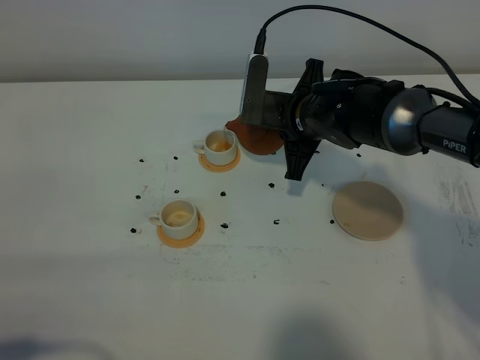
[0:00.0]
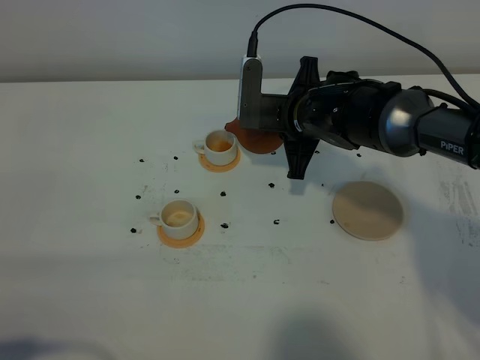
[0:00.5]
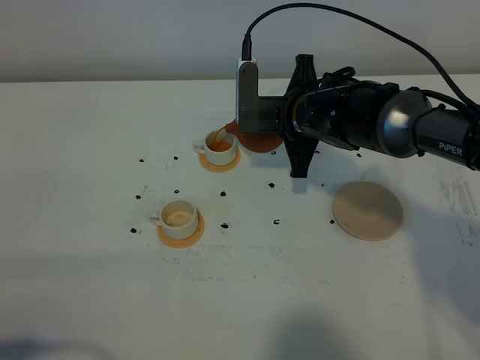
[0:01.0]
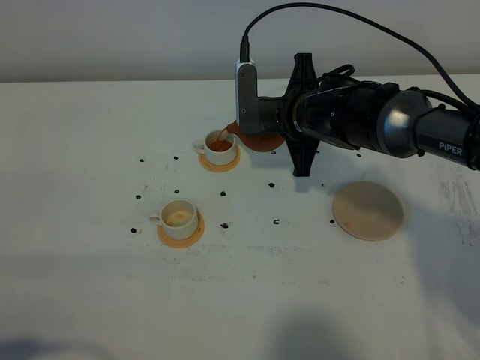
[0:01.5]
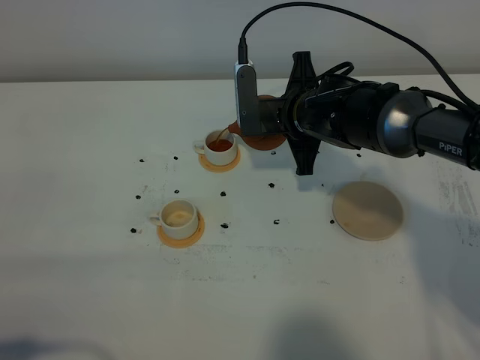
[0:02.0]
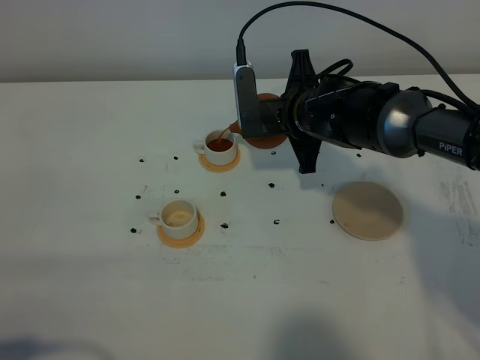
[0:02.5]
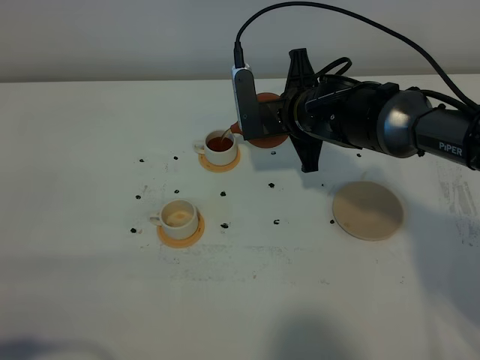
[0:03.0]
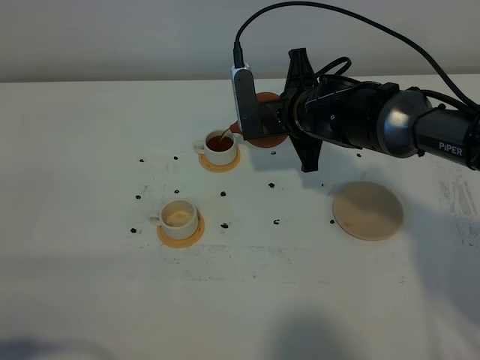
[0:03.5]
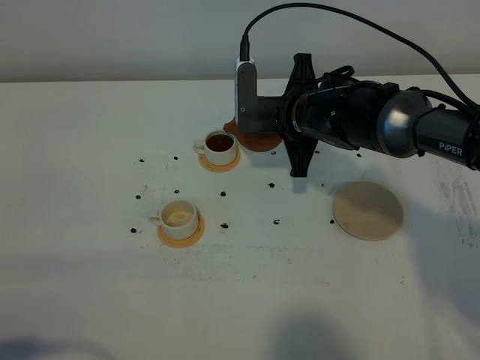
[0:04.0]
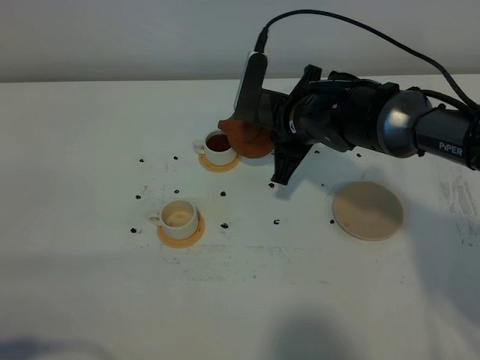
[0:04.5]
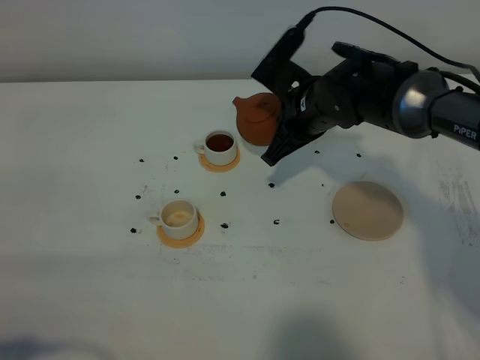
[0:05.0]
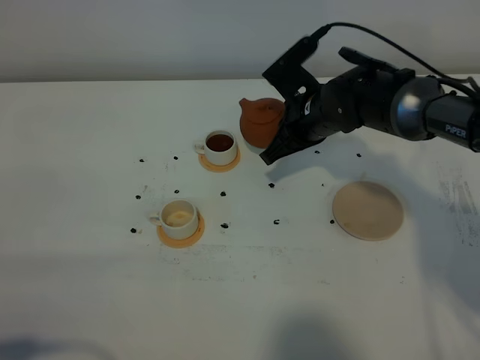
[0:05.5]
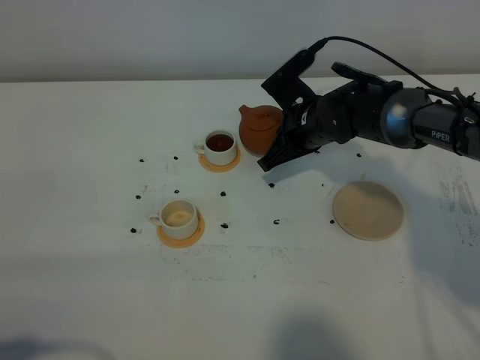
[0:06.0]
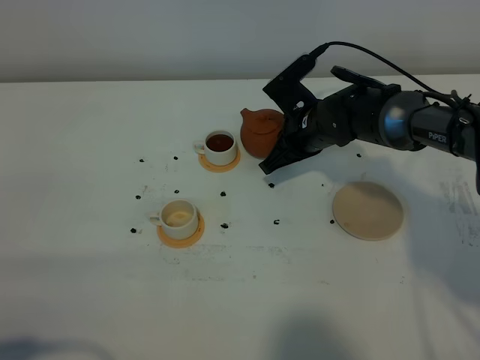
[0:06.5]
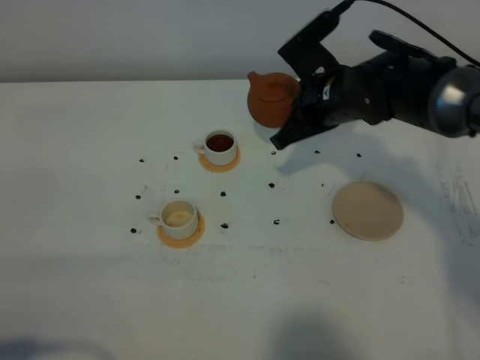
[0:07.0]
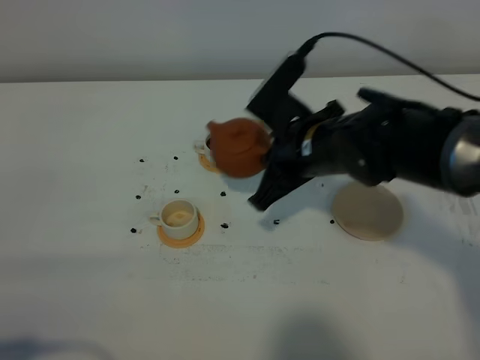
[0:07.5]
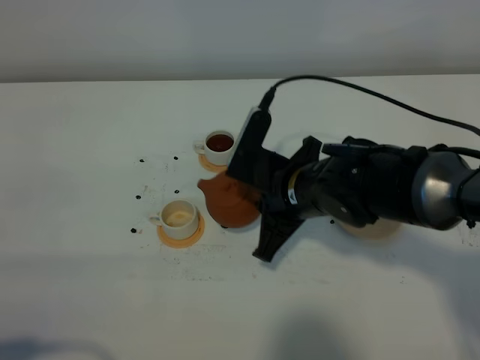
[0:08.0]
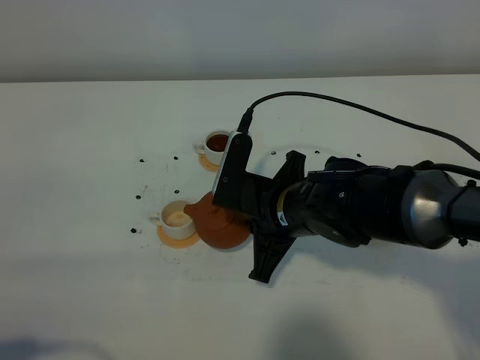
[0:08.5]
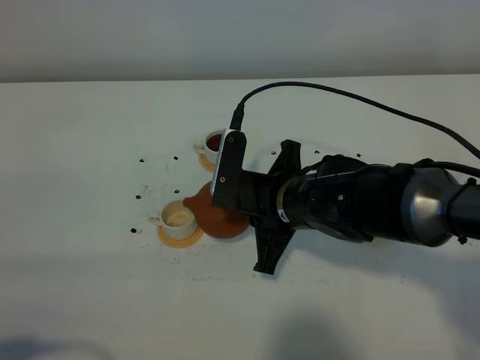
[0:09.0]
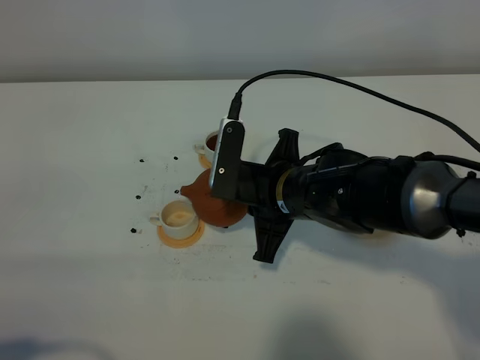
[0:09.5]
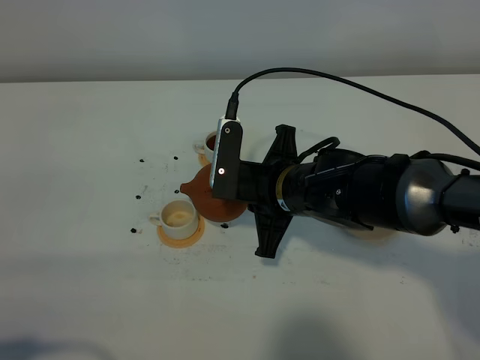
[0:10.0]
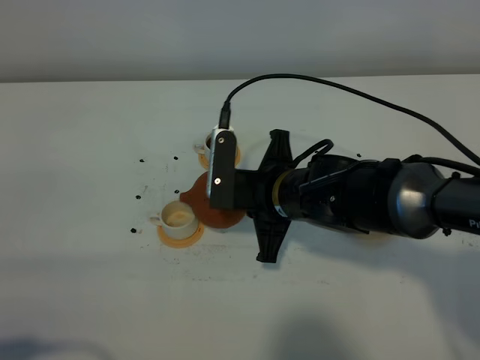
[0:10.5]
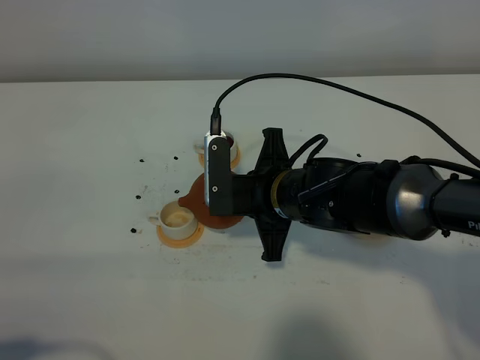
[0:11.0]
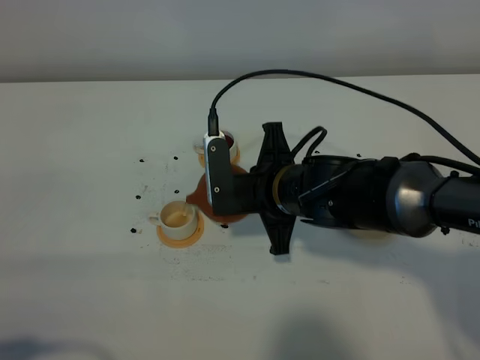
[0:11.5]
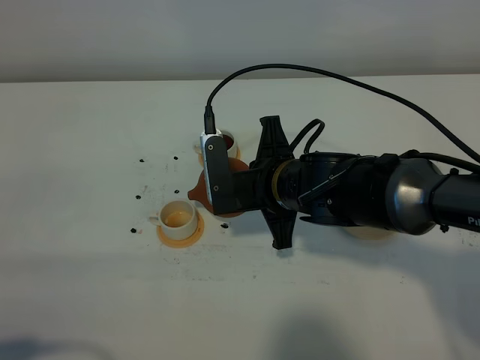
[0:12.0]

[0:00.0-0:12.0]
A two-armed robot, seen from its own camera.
Task of the whole recording: grasp the brown teapot and pour the tea into the two white teacups one by one, put the brown teapot back in its original place.
0:00.0 to 0:04.0: There are only small adjustments of the grippers.
0:04.0 to 0:06.0: The right gripper shifts by roughly 5 cm.
0:06.0 to 0:08.0: The right gripper goes roughly 15 cm backward.
0:08.0 to 0:10.0: The grippers make only small movements.
0:10.0 to 0:12.0: The grippers stay close to where they were, moving slightly.

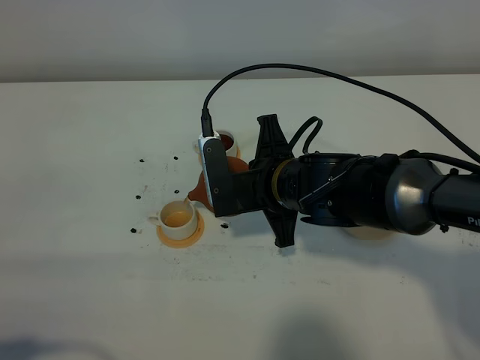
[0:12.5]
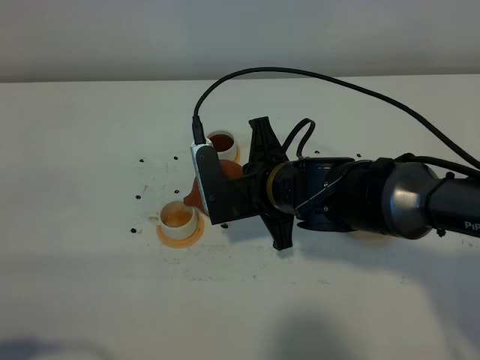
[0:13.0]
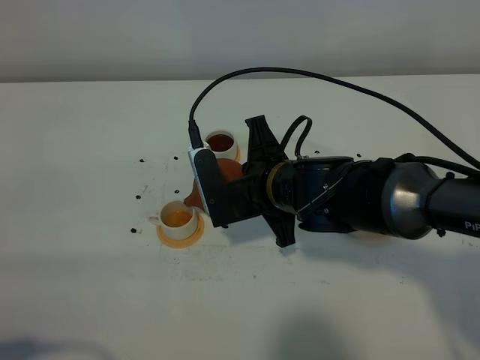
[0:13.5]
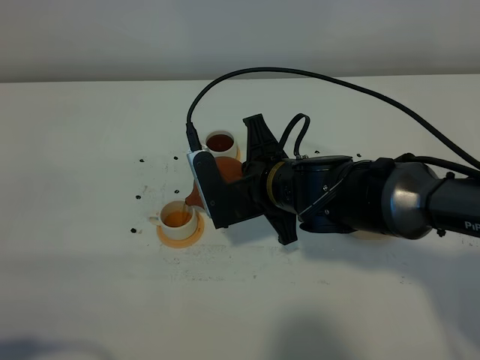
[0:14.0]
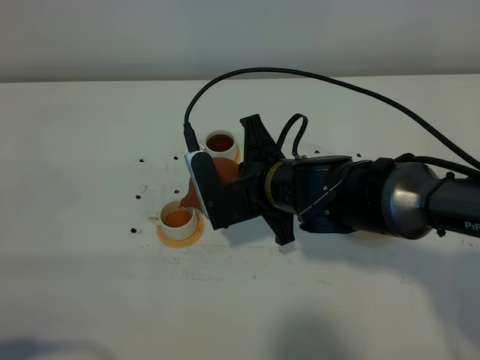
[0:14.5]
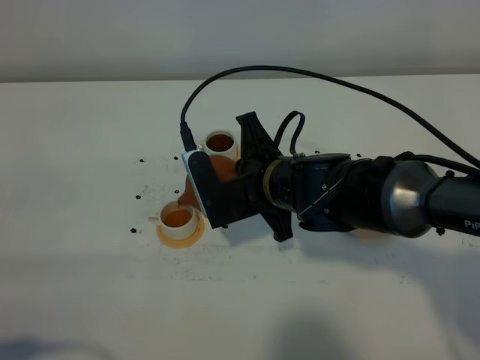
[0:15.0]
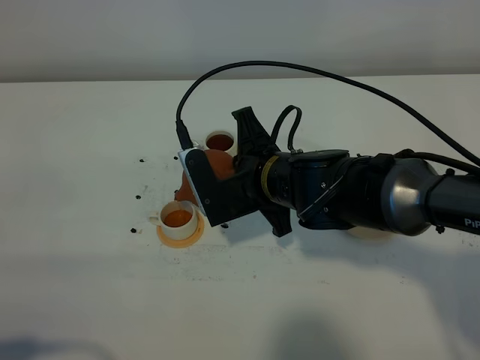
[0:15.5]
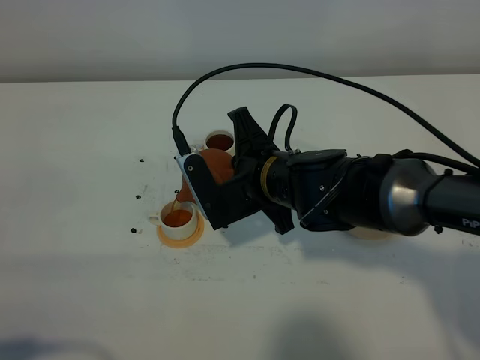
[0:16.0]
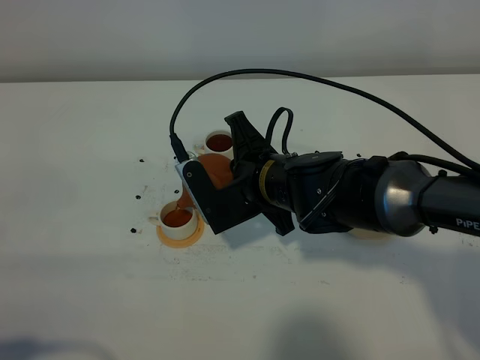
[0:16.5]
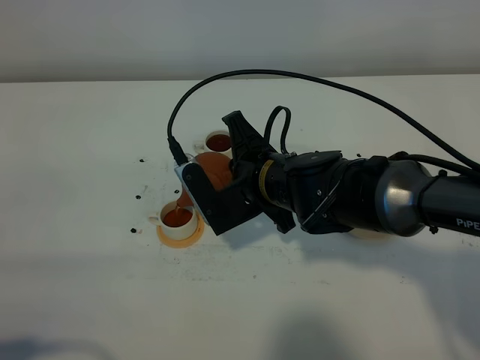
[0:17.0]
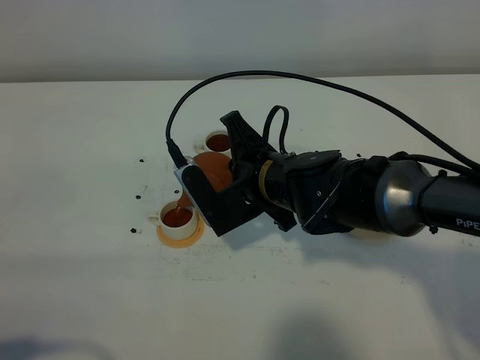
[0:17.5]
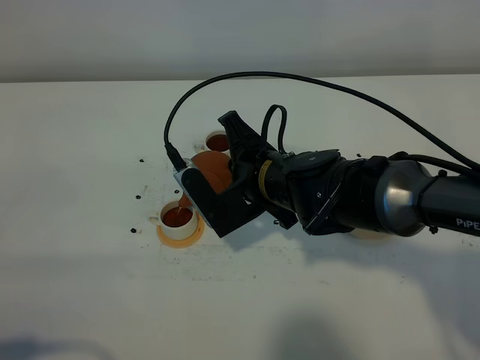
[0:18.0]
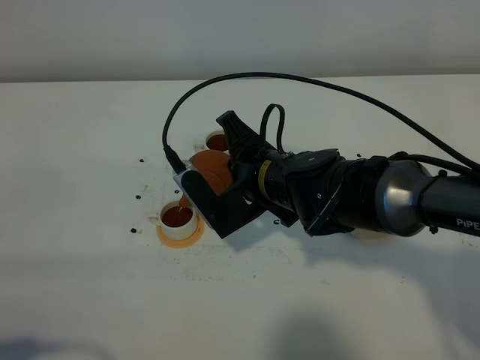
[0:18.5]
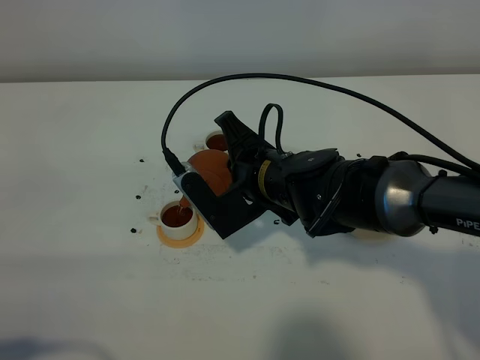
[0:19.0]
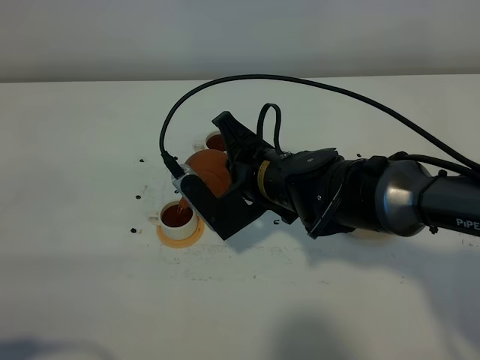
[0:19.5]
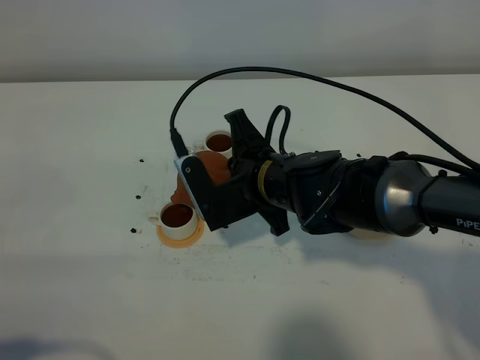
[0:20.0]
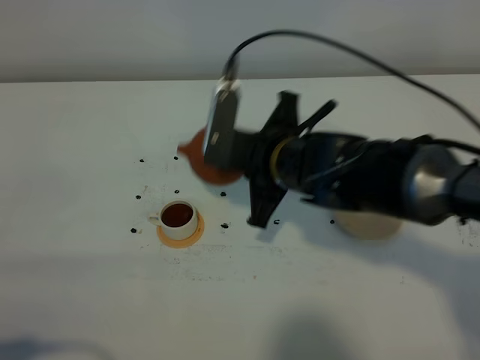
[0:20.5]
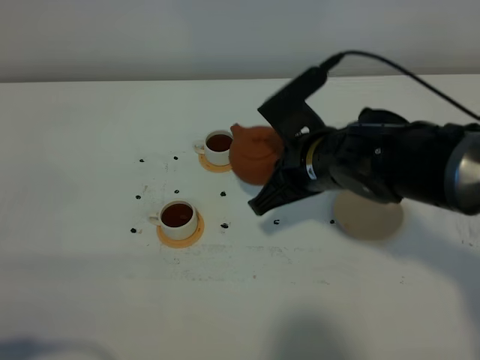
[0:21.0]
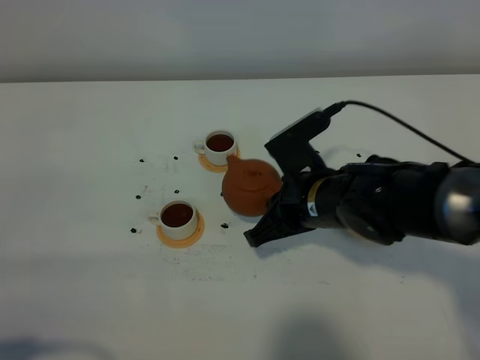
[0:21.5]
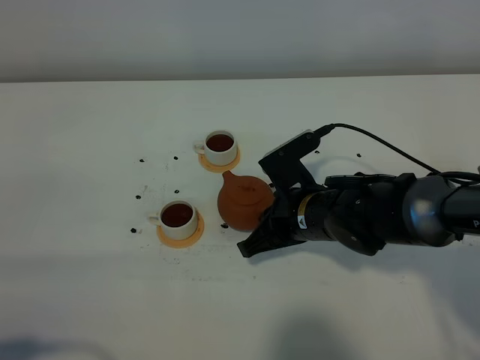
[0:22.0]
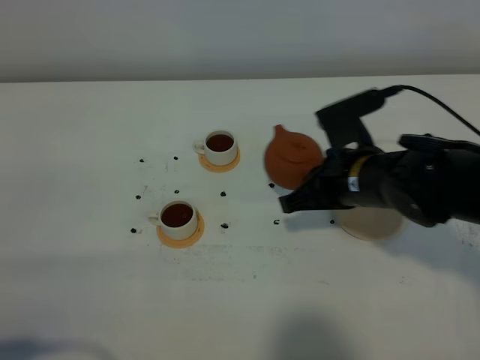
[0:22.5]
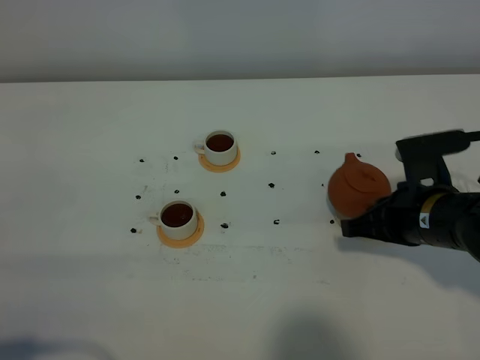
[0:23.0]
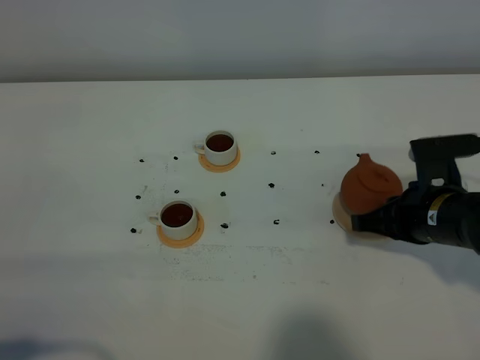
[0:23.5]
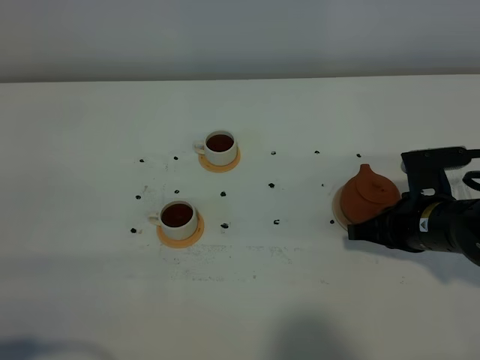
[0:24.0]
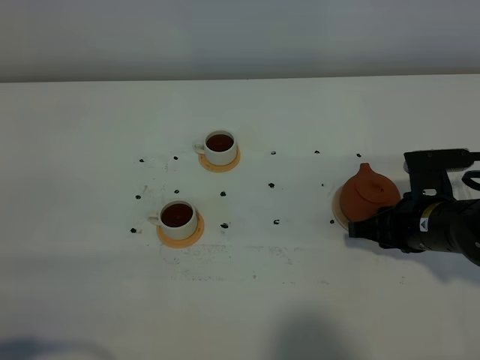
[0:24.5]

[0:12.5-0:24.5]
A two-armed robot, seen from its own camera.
Task of the whole recording: grasp the brown teapot and pour the tea into the two white teacups one by one, put the brown teapot back in its original place.
Step, 0:12.5 to 0:20.0: Pour tea into the teacup with the right gripper.
0:12.5 to 0:16.5: The grippers move only a little.
0:16.5 to 0:18.5: The grippers move only a little.
0:20.5 to 0:22.5: The right gripper heads to the right, covering approximately 10 cm.
0:22.5 to 0:24.5: The right gripper goes some 10 cm to the right and downward, and opens.

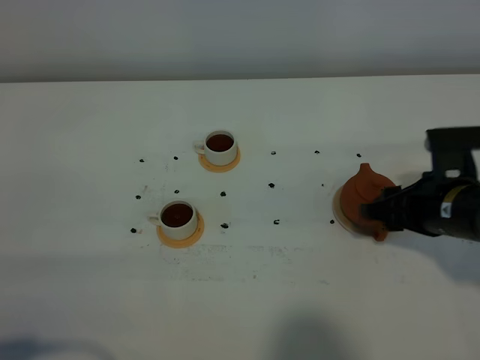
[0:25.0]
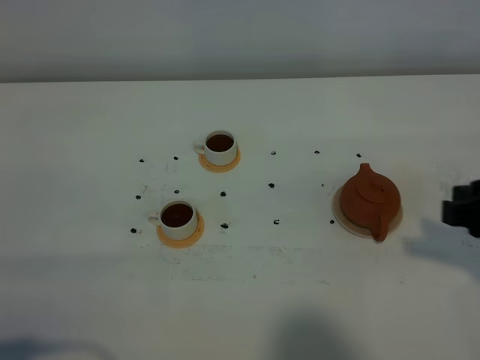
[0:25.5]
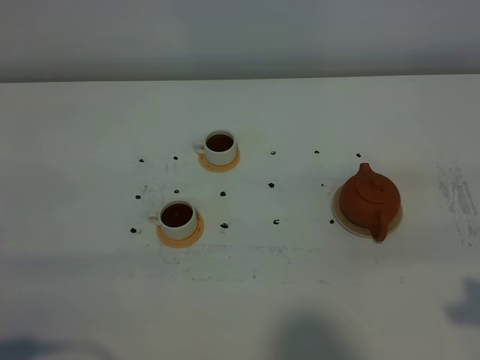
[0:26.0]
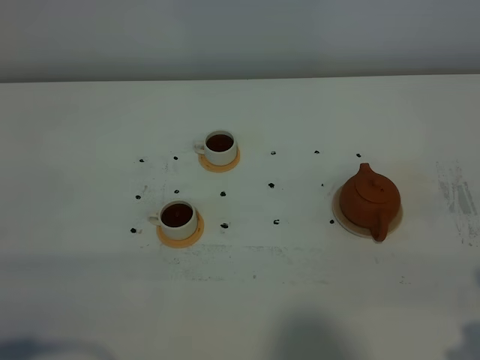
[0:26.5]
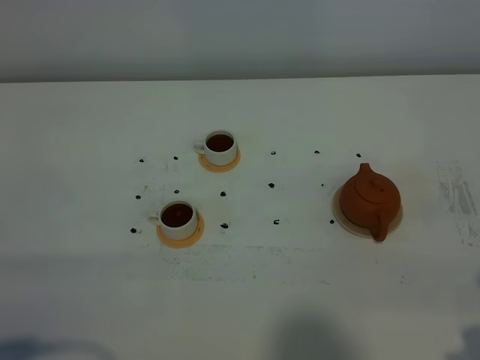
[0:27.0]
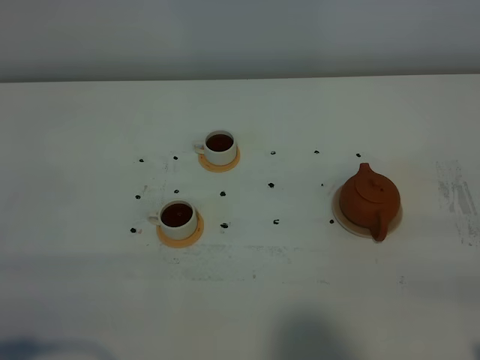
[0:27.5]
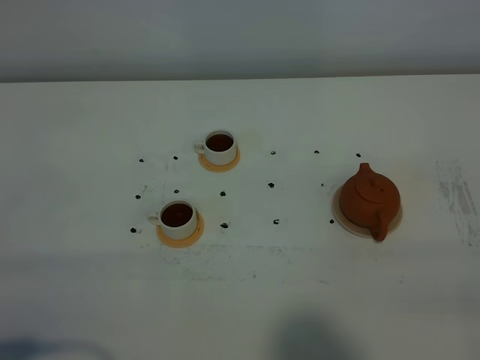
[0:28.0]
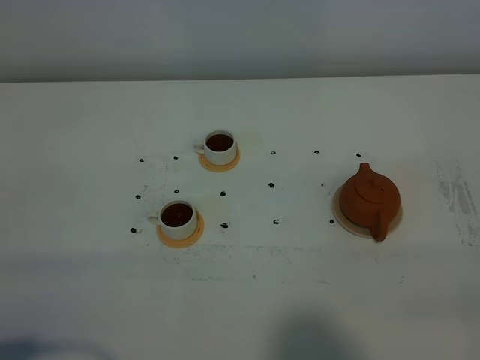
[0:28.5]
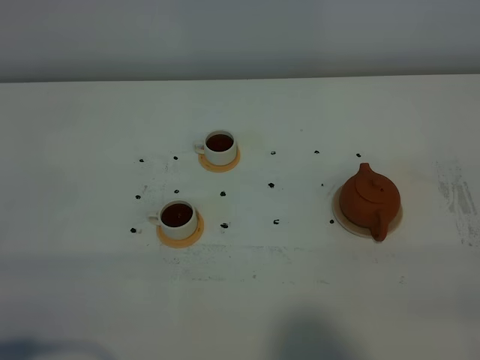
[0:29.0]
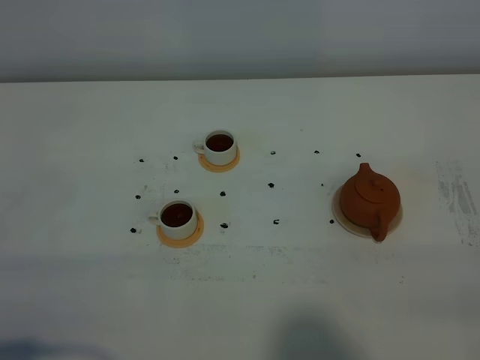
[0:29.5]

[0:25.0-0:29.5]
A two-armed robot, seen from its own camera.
Task of the whole recording: grasp the brown teapot and pour the tea into the two white teacups one by one, put the brown teapot back in its original place.
0:25.0 to 0:27.0: The right gripper is displaced backward, to the right and upward by roughly 20 cm.
